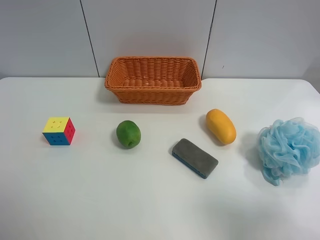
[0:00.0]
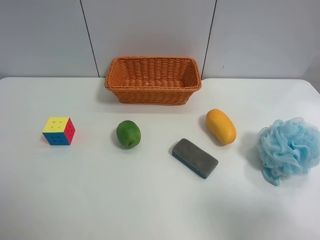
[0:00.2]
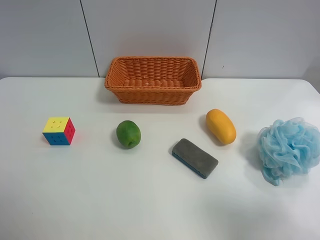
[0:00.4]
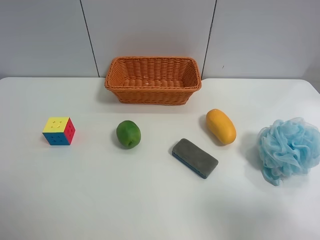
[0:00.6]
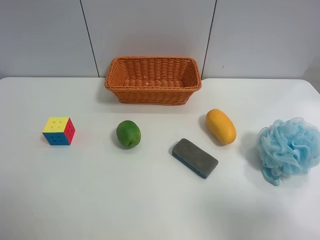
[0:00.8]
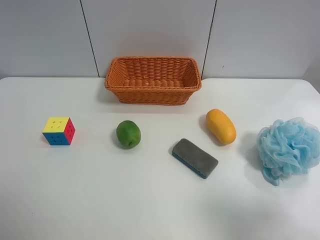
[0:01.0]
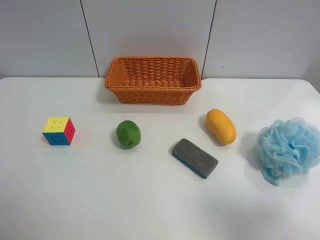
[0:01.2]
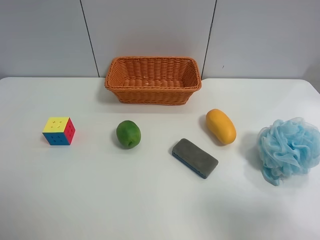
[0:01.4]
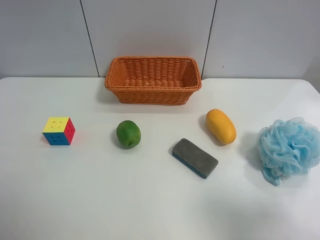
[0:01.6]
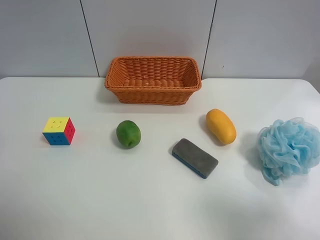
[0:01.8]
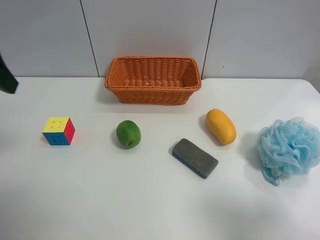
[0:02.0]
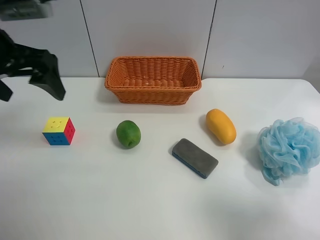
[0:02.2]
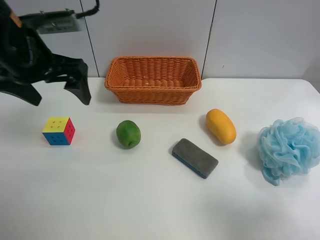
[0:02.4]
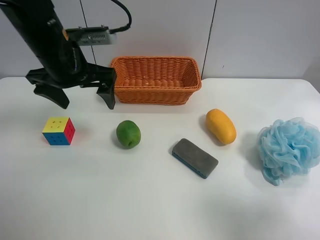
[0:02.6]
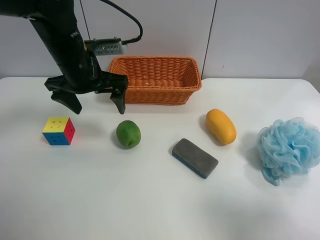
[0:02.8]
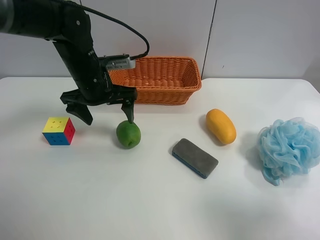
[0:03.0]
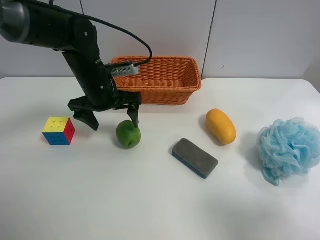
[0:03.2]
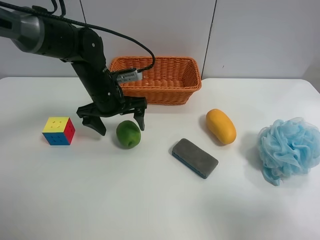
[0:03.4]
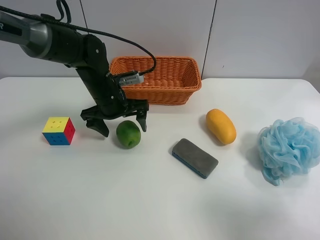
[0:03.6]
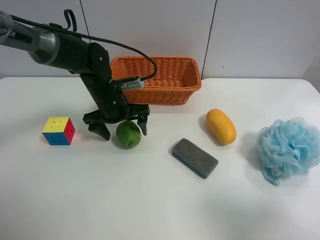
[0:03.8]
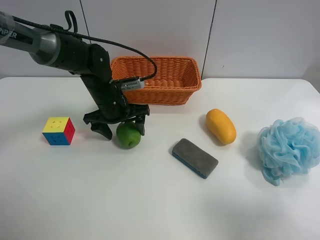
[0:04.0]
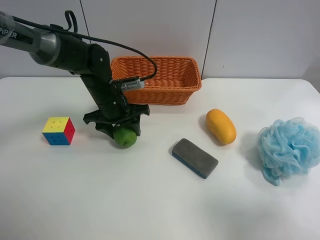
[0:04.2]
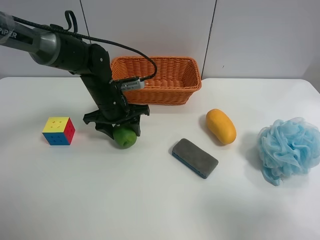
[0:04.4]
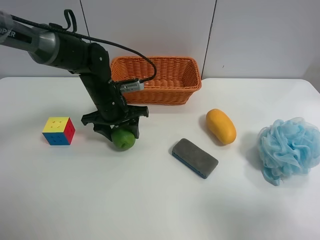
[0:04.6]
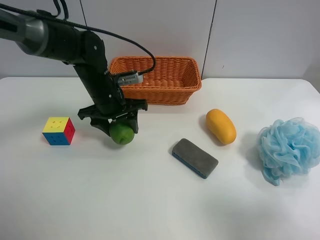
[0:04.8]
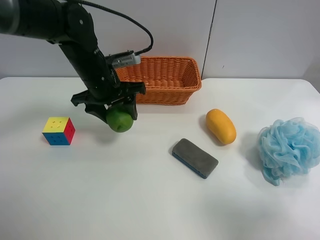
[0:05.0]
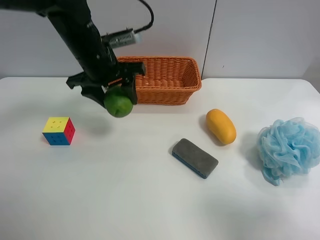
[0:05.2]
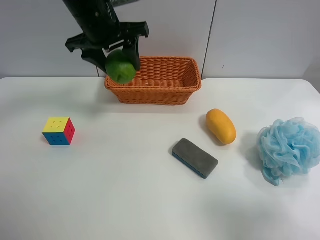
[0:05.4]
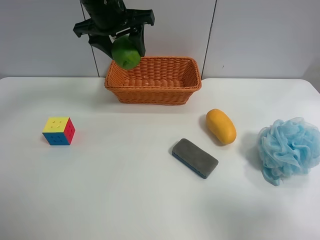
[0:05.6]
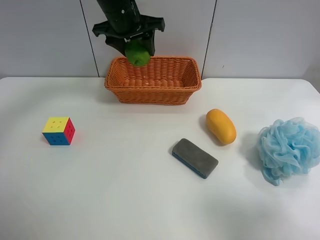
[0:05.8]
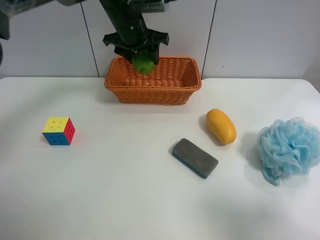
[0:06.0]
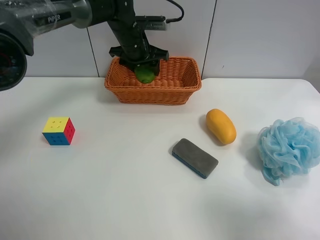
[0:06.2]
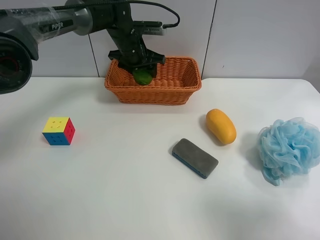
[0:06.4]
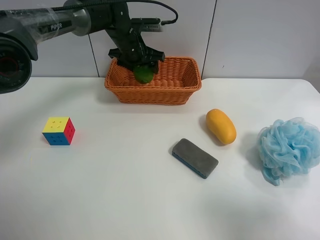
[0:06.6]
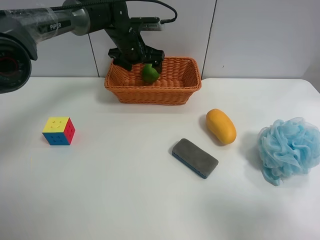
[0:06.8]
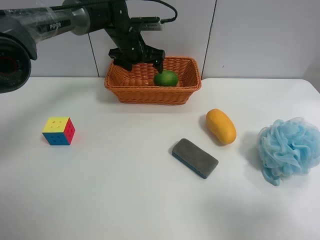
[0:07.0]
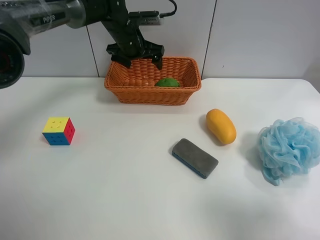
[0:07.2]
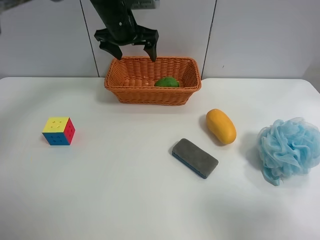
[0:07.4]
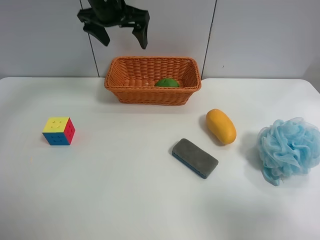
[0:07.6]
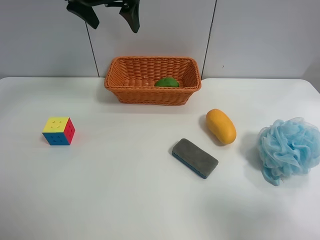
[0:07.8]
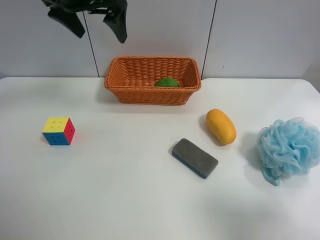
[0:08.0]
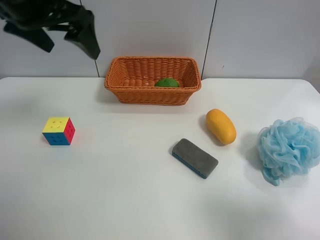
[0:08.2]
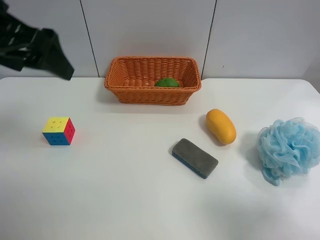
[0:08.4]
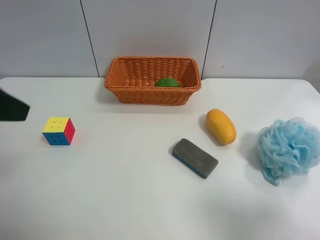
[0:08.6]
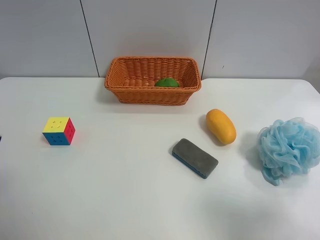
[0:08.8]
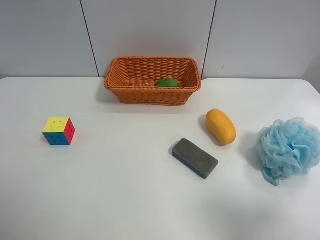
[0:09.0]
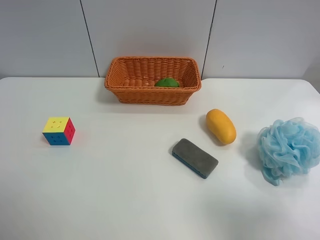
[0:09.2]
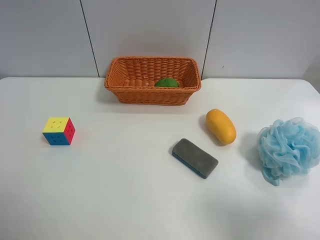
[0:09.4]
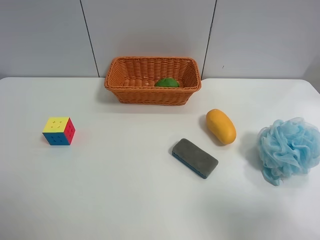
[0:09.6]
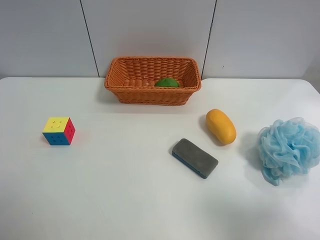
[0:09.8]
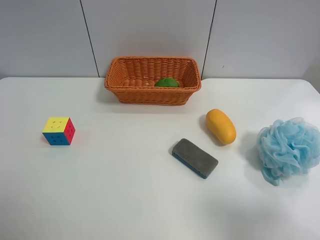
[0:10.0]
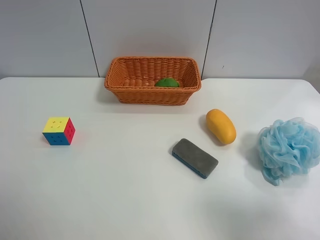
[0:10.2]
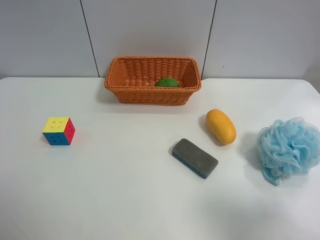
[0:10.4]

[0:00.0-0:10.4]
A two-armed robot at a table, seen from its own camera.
Task of the whole recording: use the left gripper to grab items from the table and place them in the basket.
Step, 0:00.0 to 0:04.2: Grasp the apple rubber puff with the left gripper.
Step, 0:04.4 to 0:07.2: Place the apple rubber puff into the basket with the left gripper.
0:01.4 to 0:03.0: The left gripper heads forward, to the right and downward, covering approximately 35 cm.
0:03.0 to 0:04.4: The left gripper moves downward, approximately 5 cm, and closes up.
0:04.4 to 0:06.0: The left gripper travels upward and forward by roughly 15 cm.
0:06.0 to 0:07.4: The left gripper opens.
0:07.4 to 0:09.0: The left gripper travels backward and to the left by about 50 cm.

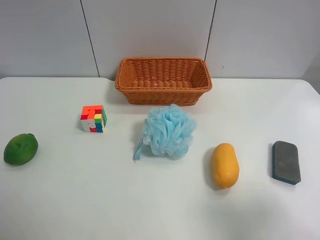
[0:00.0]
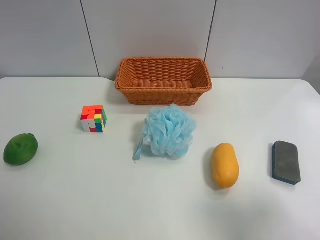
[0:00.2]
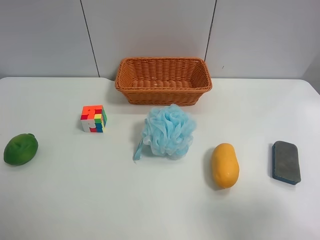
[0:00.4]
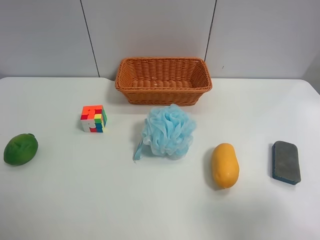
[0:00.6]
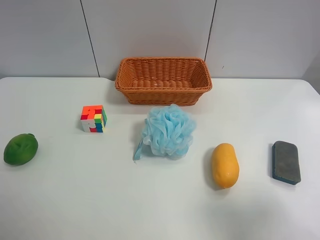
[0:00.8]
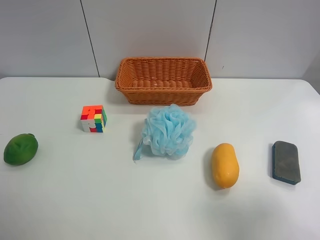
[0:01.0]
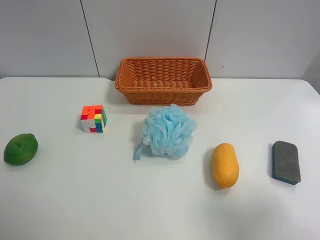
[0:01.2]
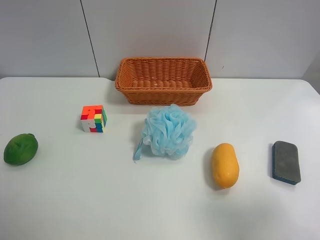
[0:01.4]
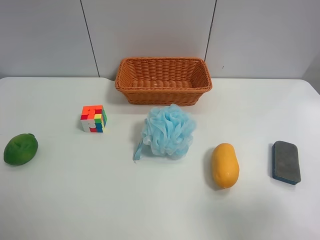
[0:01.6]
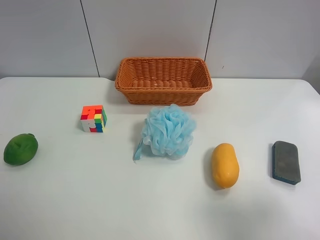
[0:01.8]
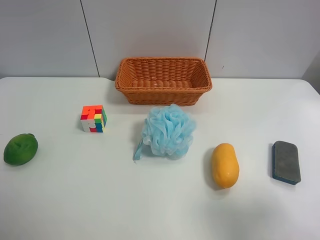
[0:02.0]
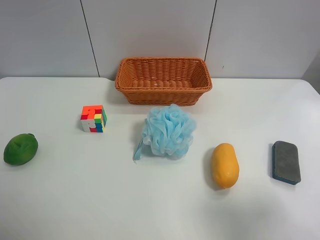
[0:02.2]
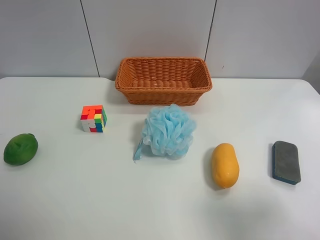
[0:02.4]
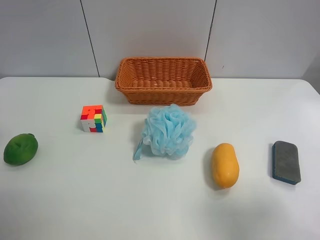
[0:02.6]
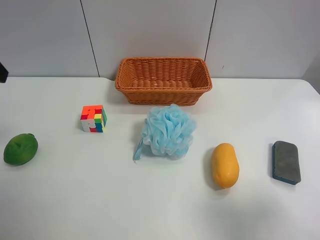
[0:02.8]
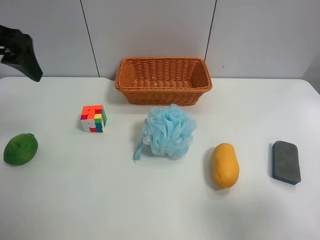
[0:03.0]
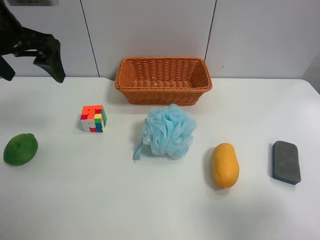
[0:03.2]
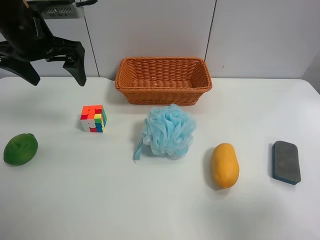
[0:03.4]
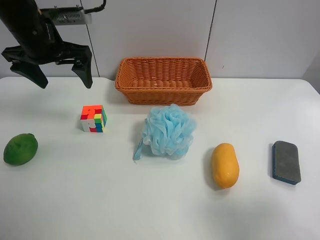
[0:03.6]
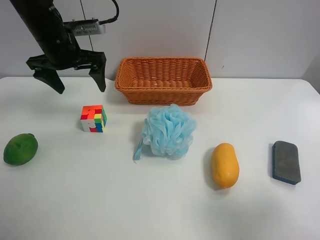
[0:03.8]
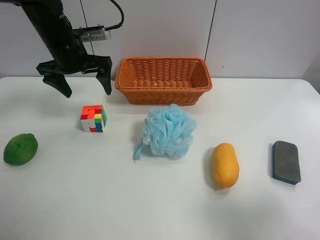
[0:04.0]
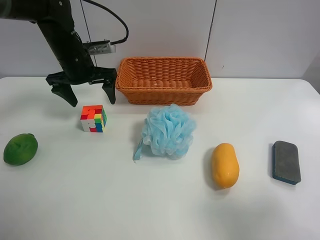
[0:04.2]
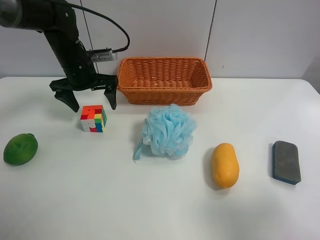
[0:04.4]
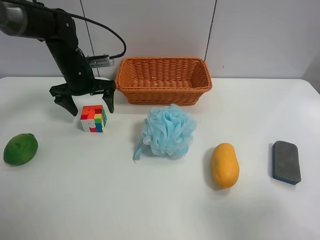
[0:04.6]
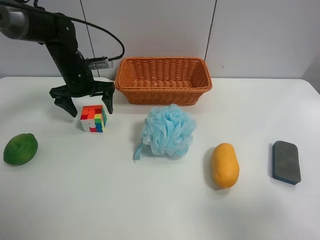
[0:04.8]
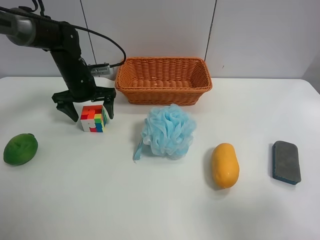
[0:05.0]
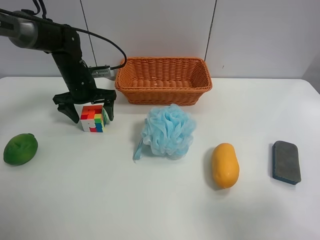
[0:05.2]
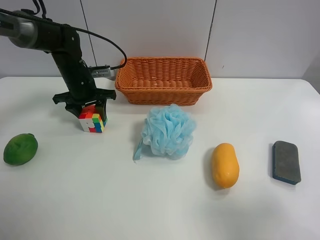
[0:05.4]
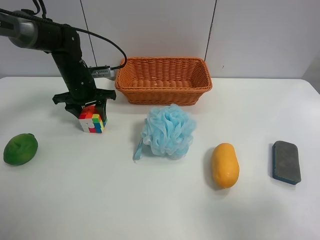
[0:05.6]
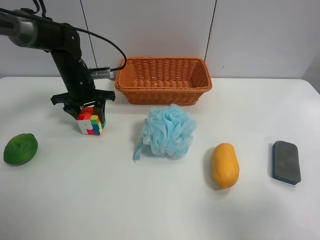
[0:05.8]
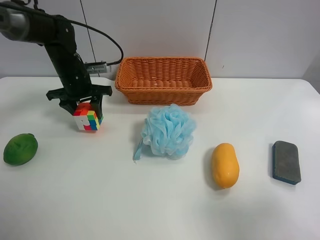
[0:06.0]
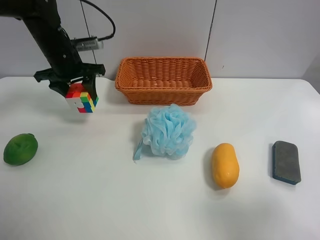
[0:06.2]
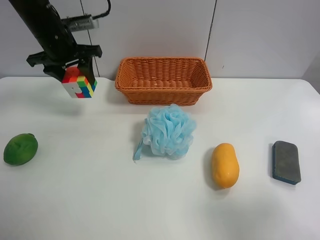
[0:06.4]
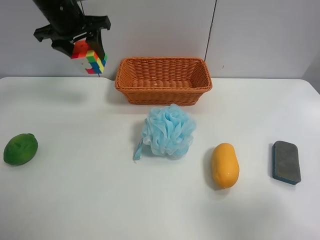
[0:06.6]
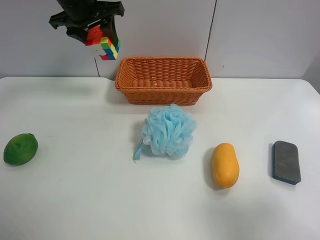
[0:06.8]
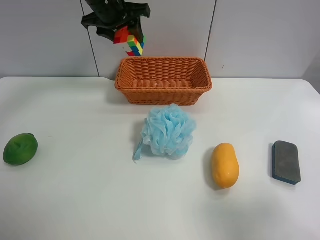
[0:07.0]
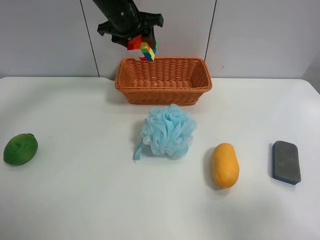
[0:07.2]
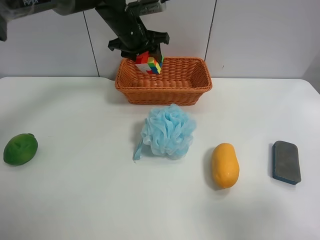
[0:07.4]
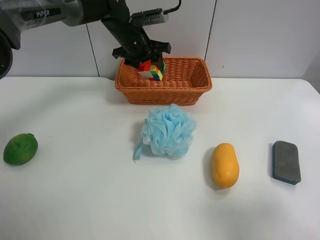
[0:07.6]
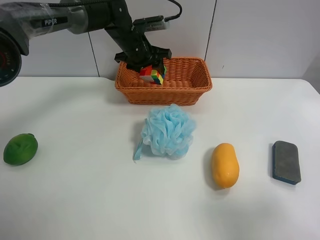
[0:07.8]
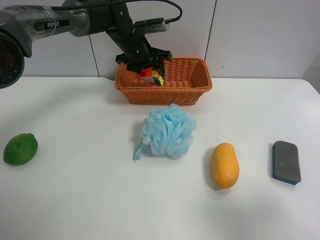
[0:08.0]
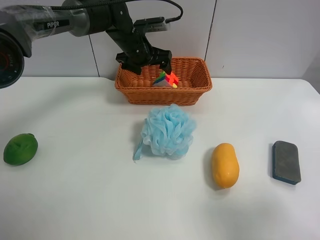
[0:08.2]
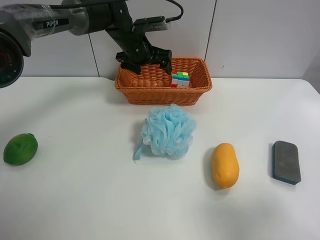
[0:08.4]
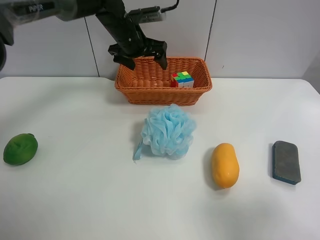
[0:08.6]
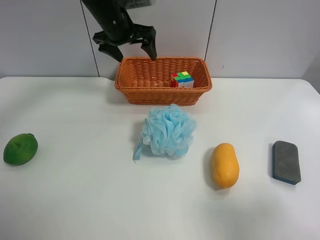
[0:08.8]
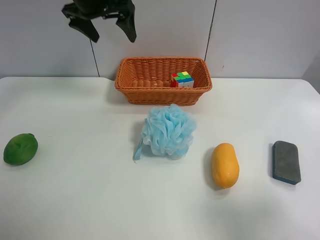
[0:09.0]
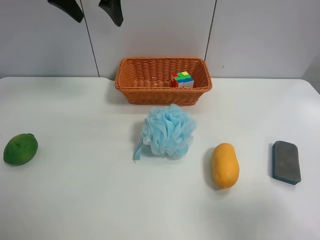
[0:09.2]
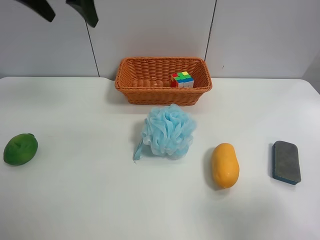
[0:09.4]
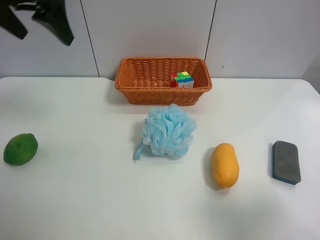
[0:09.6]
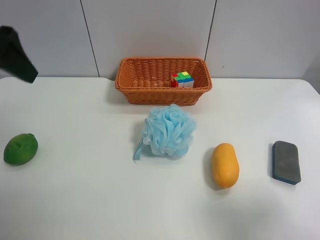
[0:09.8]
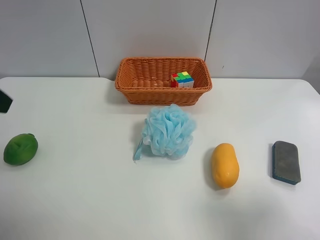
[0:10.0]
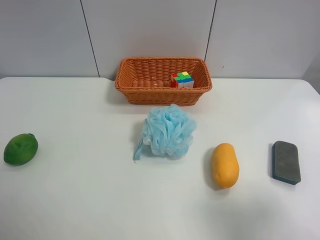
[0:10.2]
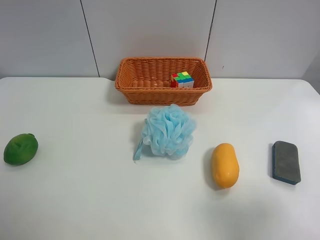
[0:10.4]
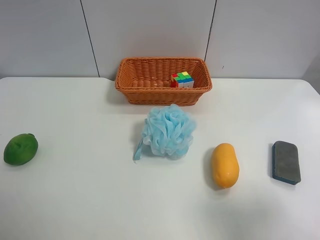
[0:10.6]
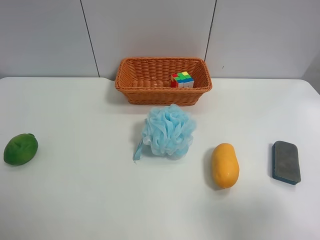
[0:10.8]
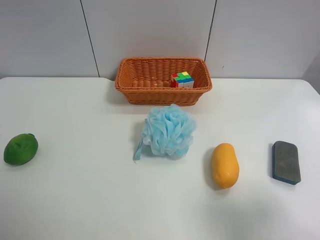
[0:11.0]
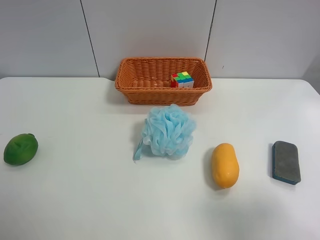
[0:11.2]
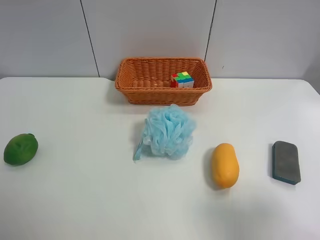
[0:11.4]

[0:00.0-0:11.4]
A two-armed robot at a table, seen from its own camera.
Task of the whole recording: use the left gripper to grab items from the table and place them in the basket.
Step, 0:00.0 to 0:05.6: Grasp the Rubik's Cube with the left gripper.
Step, 0:05.8 to 0:08.2: Place the Rubik's Cube into the basket with the left gripper.
0:02.8 to 0:04.2: The left gripper is displaced forward, downward and to the right by roughly 25 cm.
0:04.2 to 0:05.6: The left gripper shifts about 5 cm downward, and closes up.
0:05.6 to 0:07.2: The left gripper goes about 20 cm upward and to the right.
0:07.2 to 0:08.6: The left gripper opens.
0:08.6 to 0:10.0: The left gripper moves backward and to the left, roughly 40 cm.
